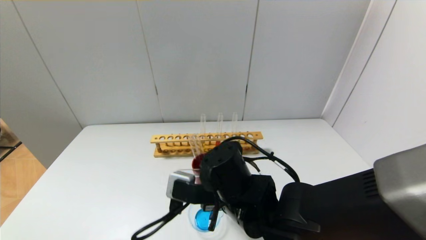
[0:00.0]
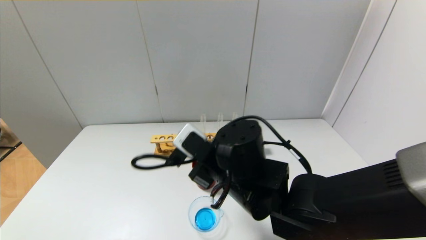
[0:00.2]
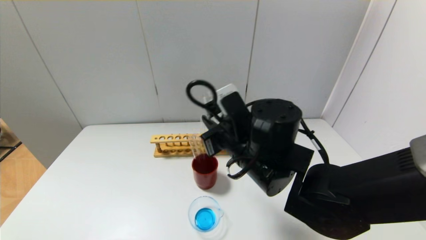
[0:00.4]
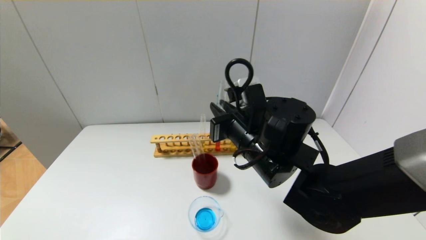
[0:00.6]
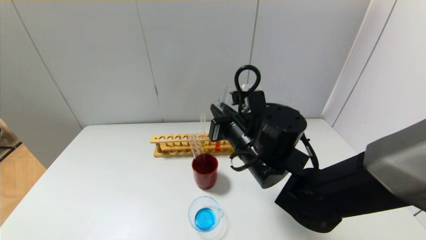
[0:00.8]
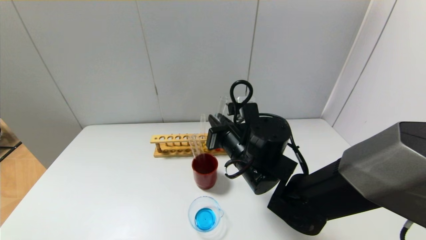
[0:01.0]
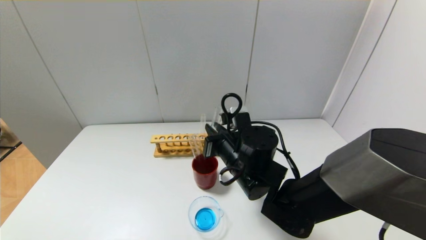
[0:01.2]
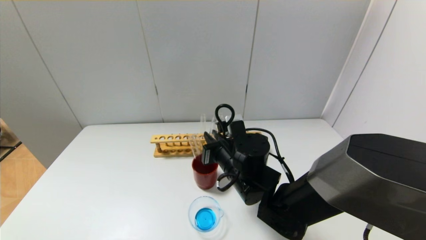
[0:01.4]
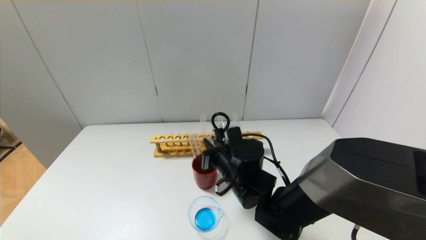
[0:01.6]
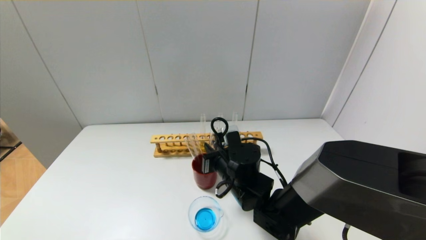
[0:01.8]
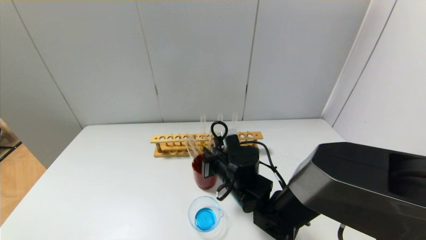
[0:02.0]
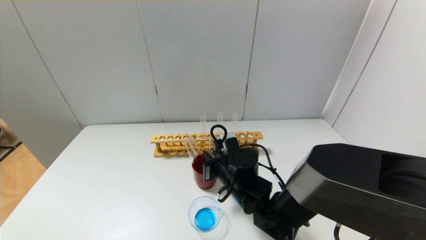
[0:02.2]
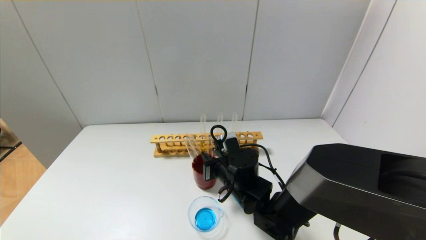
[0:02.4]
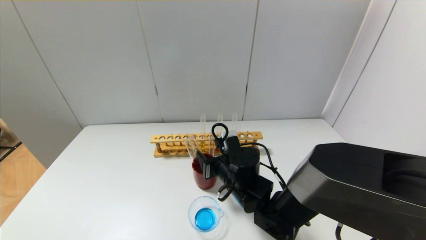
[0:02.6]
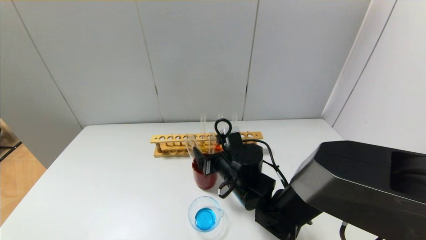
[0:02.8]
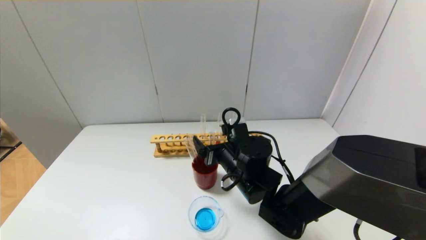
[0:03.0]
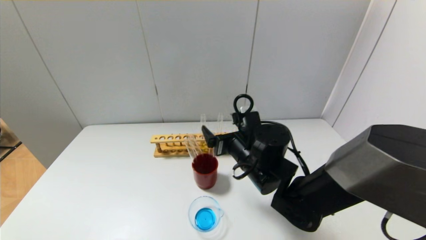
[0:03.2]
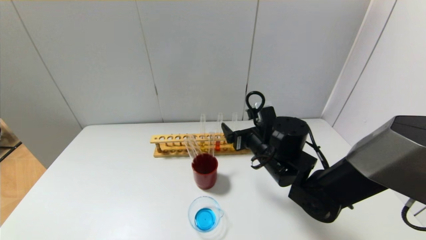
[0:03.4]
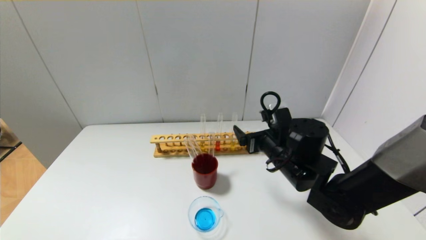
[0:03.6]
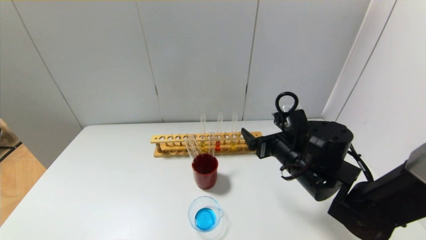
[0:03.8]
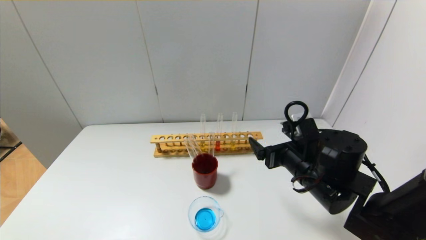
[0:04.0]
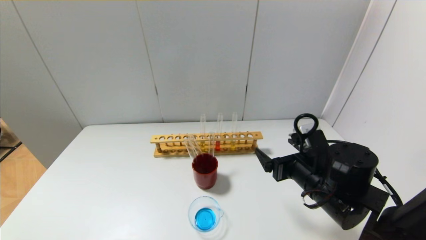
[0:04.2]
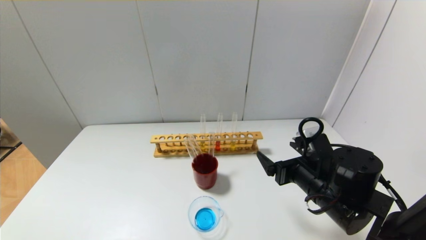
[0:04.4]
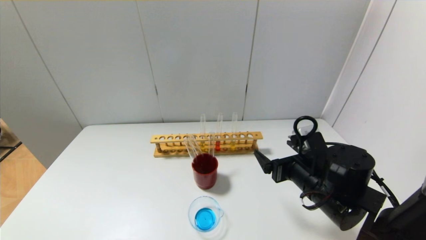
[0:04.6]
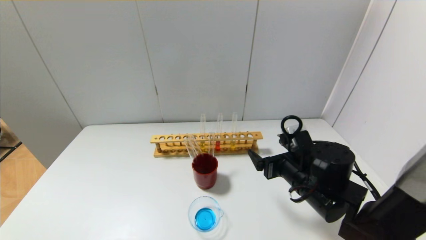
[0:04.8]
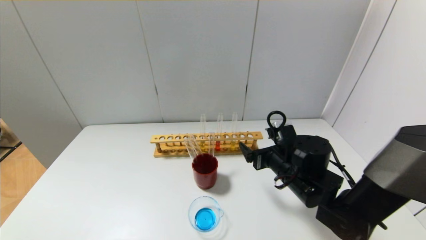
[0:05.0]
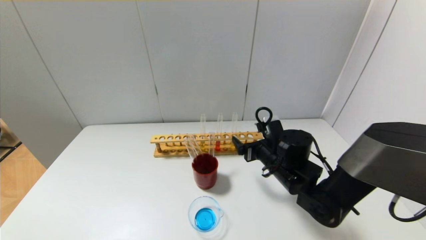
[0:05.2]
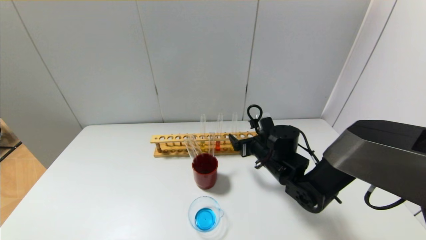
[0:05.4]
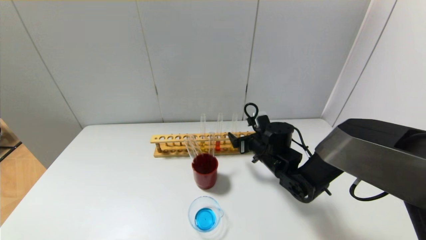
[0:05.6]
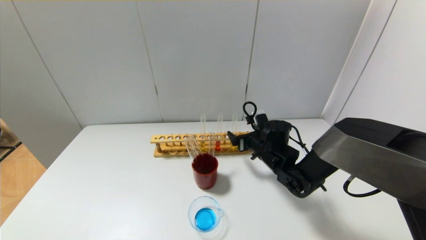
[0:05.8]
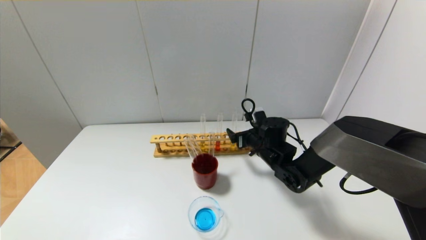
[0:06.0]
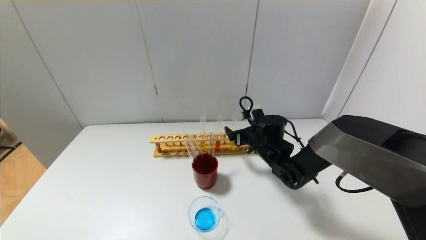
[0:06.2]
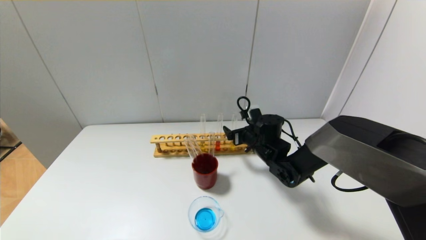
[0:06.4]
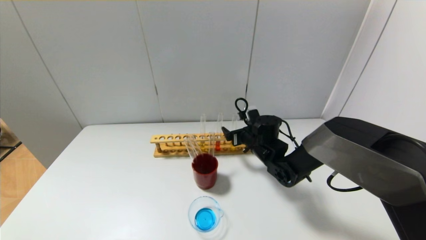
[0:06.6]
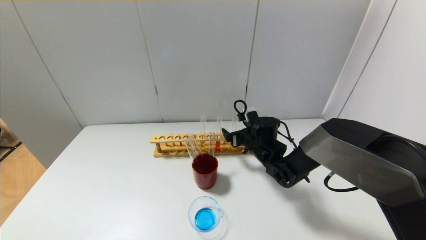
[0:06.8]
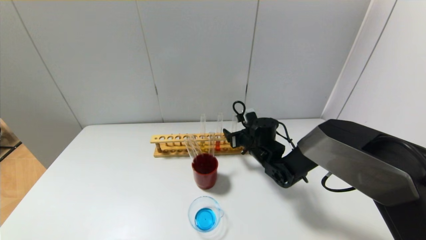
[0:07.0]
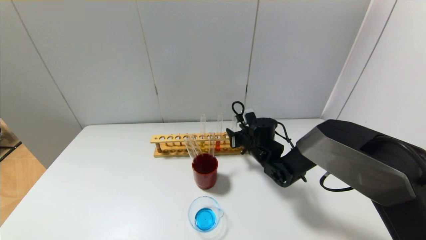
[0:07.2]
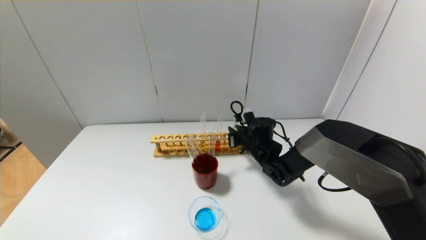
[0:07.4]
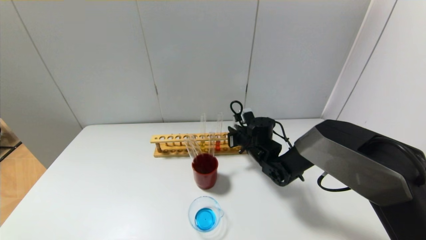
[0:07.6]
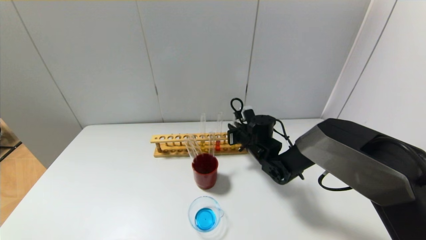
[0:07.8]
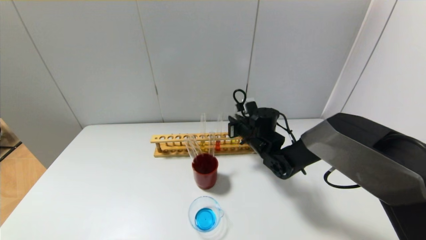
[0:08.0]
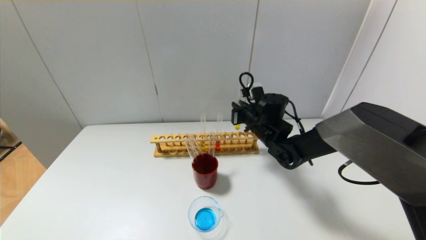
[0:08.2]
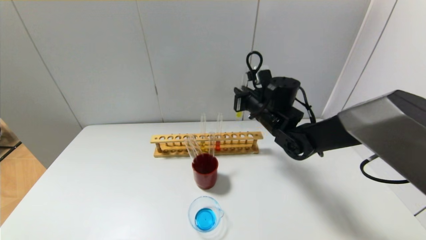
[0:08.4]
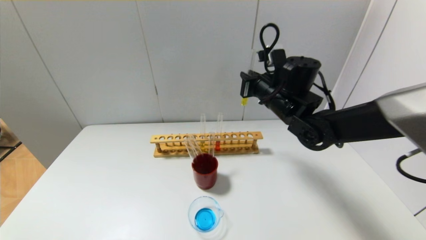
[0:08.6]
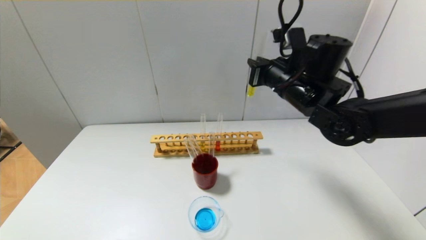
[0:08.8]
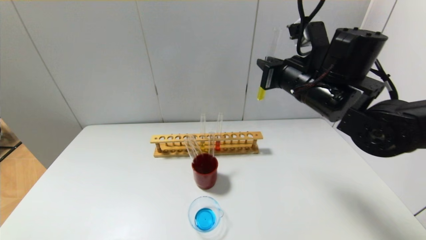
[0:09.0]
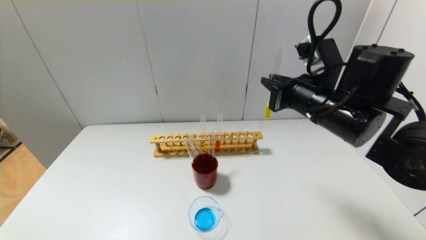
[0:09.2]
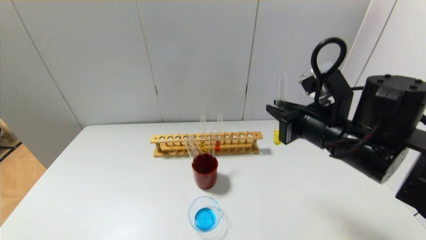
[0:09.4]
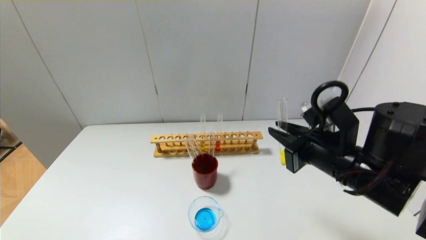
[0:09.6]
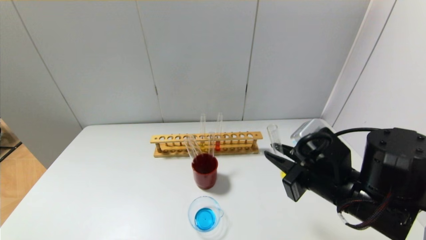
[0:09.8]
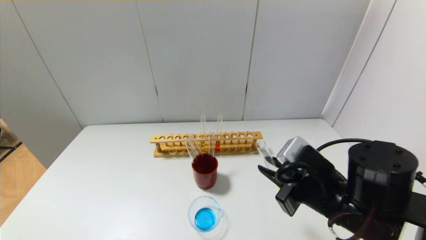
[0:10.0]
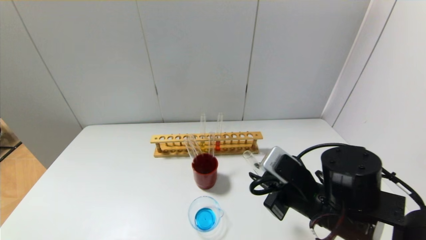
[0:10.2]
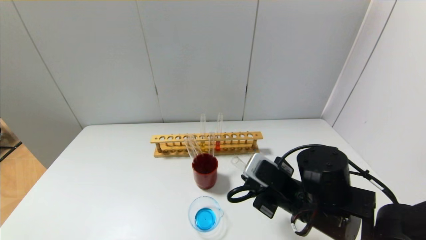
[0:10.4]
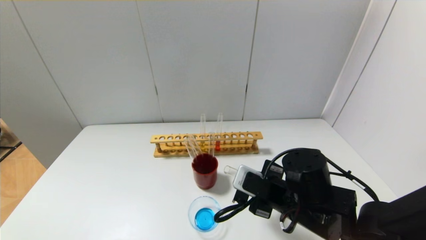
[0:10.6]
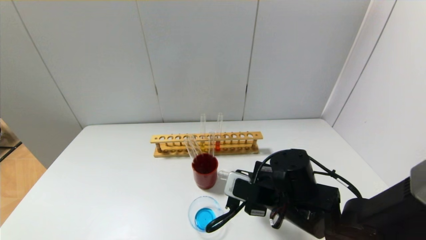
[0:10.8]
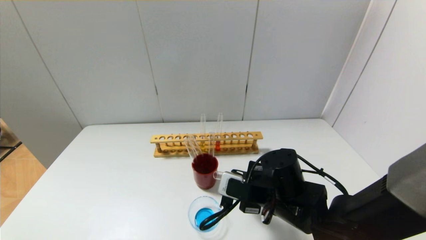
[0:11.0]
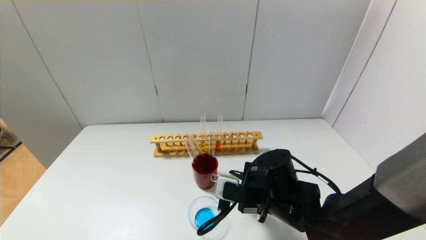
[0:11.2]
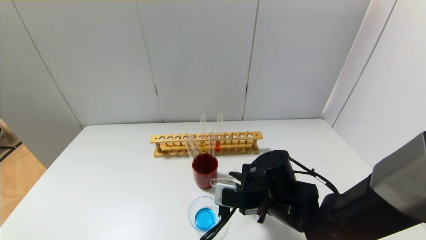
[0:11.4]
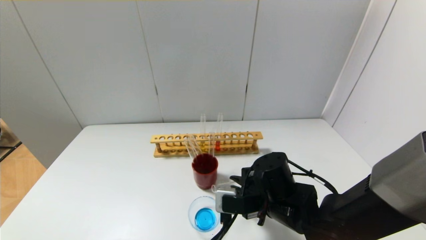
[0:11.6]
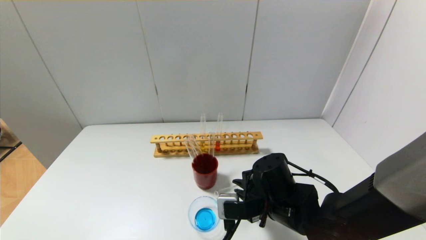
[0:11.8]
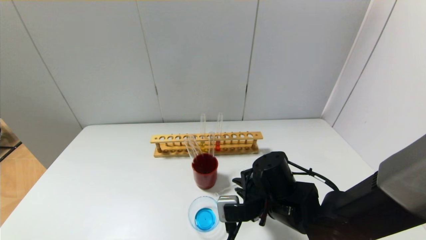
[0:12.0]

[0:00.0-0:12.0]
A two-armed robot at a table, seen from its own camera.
Step, 0:00.0 to 0:02.8: Place the test tube into the brown cup with the right gripper.
Step, 0:03.0 to 0:07.6: Grasp the yellow reagent with the right gripper.
0:00.0 to 0:01.6: The right gripper goes some 5 cm forward.
0:01.6 to 0:03.0: The right gripper opens its fingers.
0:03.0 to 0:04.4: The right gripper travels to the right and backward by approximately 15 cm.
0:04.4 to 0:06.0: The right gripper travels forward by roughly 15 cm.
0:06.0 to 0:07.6: The right gripper closes.
0:07.6 to 0:09.0: The right gripper is displaced upward and backward by about 25 cm.
0:09.0 to 0:10.4: The right gripper heads downward and backward, covering roughly 20 cm.
0:10.4 to 0:12.0: The right gripper moves some 5 cm.

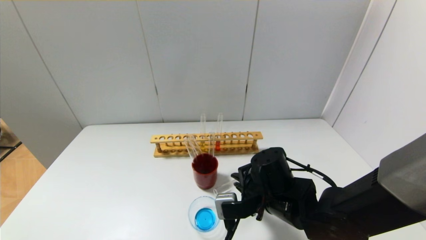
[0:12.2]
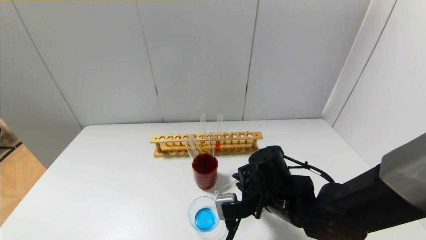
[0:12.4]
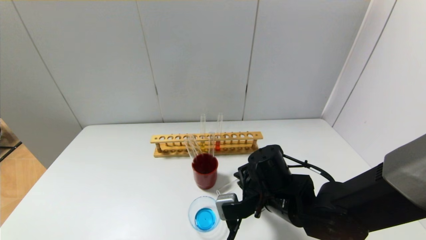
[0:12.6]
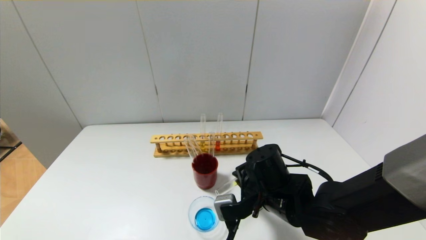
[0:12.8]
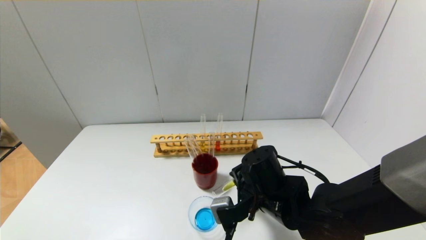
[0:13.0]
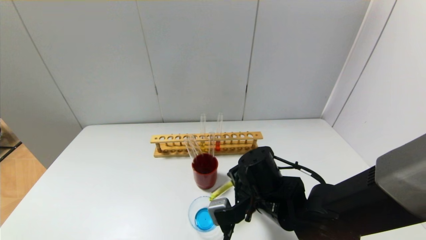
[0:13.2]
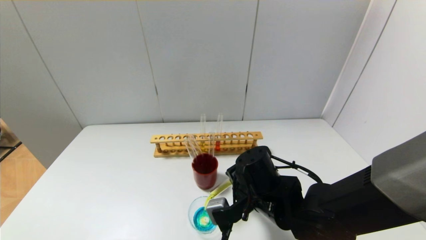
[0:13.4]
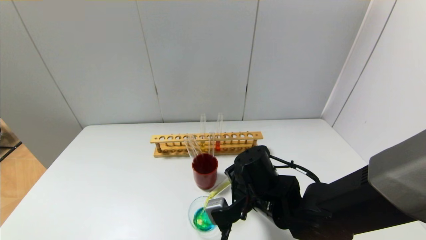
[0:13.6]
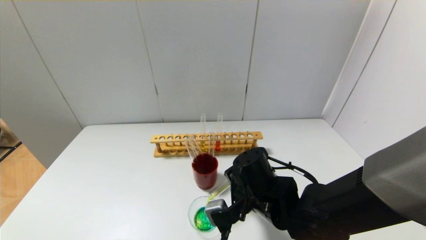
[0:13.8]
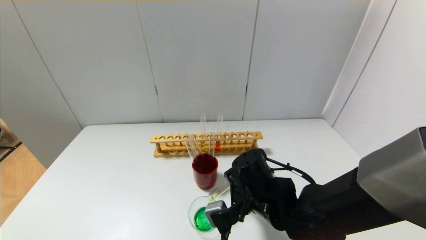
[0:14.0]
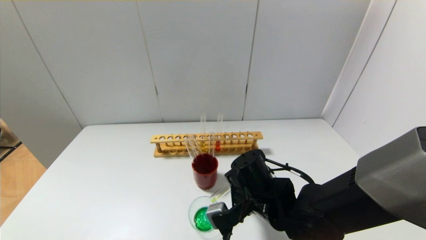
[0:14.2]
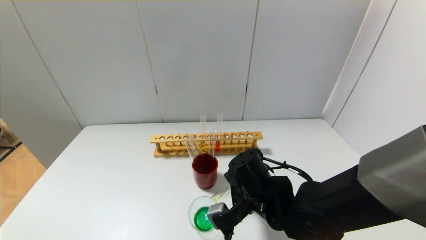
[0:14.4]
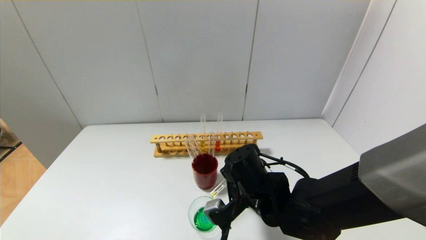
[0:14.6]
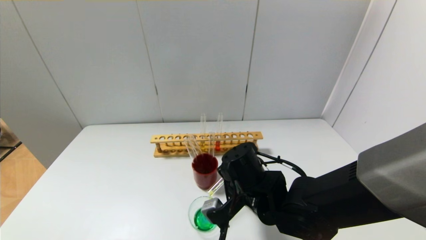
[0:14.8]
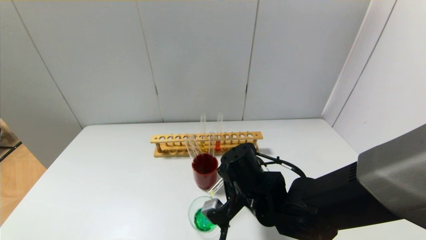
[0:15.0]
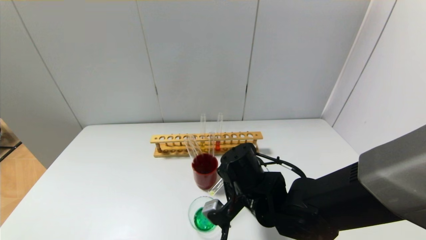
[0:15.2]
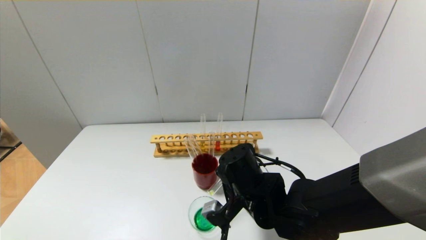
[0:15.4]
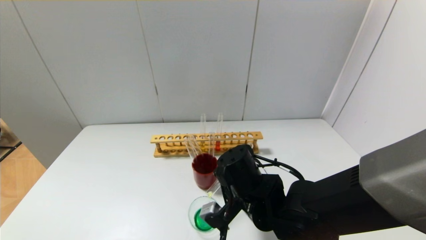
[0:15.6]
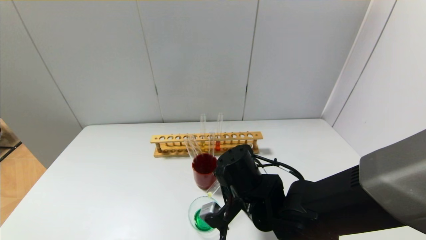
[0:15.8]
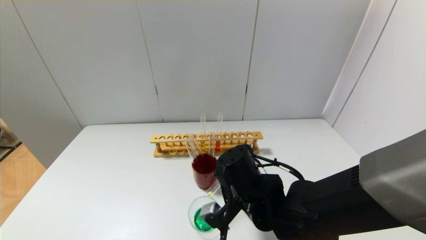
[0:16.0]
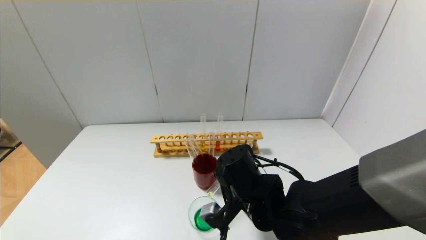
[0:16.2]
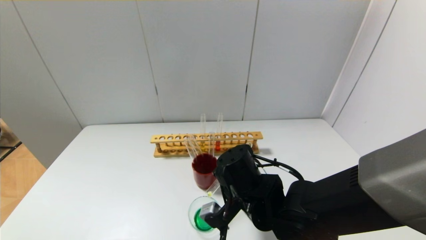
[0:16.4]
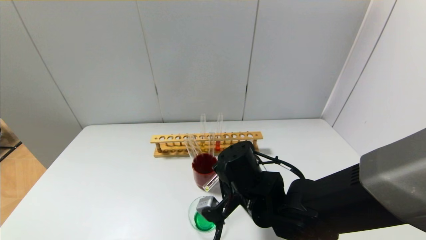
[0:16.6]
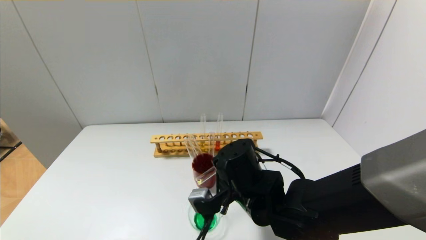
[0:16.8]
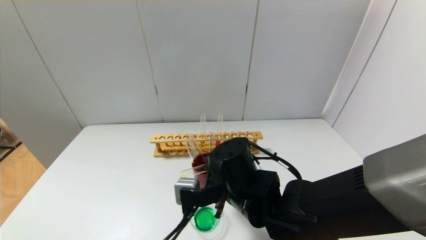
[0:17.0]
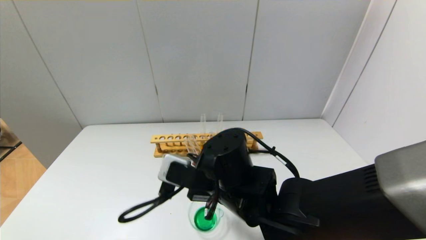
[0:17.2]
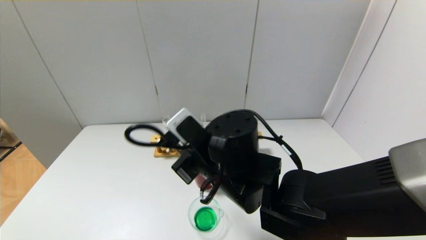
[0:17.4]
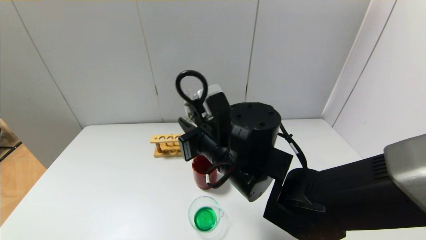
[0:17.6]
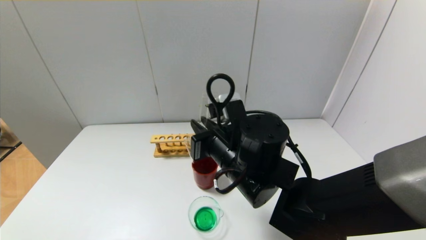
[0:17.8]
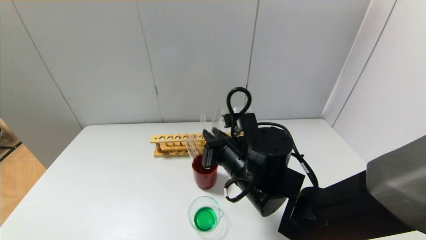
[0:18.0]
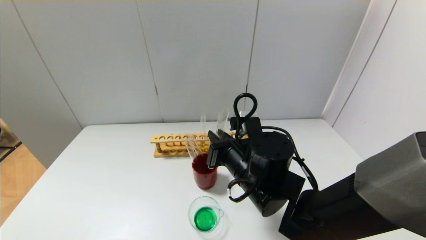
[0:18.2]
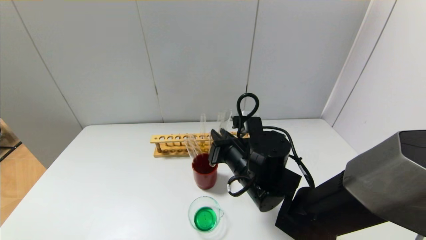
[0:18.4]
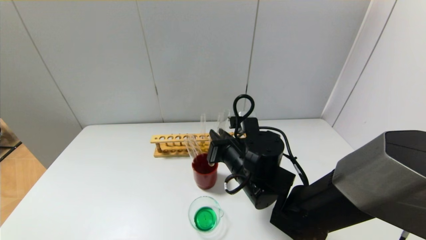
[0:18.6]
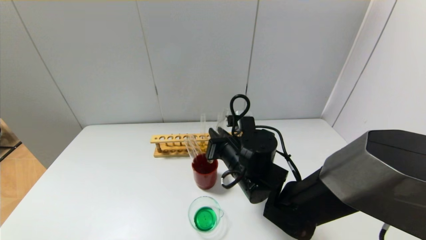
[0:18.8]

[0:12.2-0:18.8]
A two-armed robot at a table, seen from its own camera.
Step, 0:12.2 to 0:16.8: Pour the yellow reagent into the graduated cylinder with the right gripper.
0:12.2 to 0:13.8: The grippers move only a little.
0:13.8 to 0:15.4: The grippers move only a little.
0:15.4 to 0:17.2: The right gripper changes place by some 5 cm.
0:17.2 to 0:18.8: The right gripper moves forward, about 5 cm.
